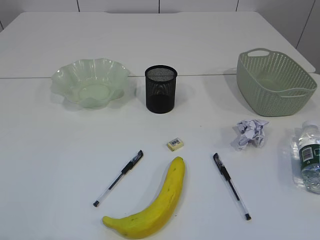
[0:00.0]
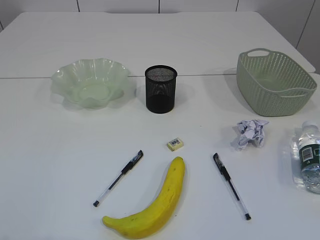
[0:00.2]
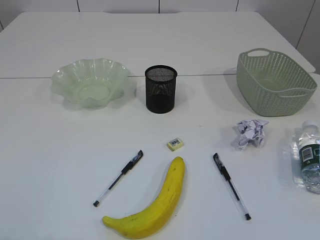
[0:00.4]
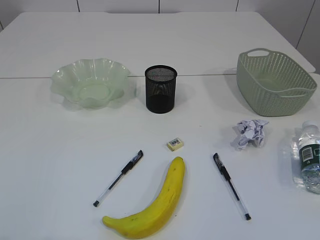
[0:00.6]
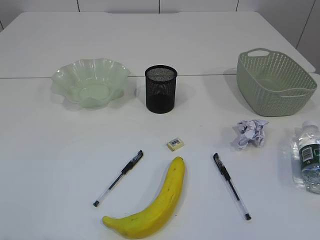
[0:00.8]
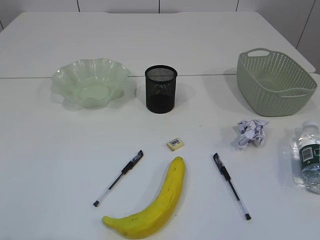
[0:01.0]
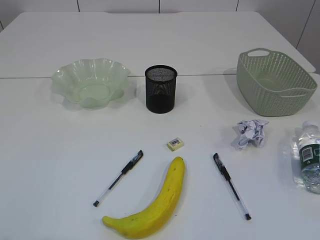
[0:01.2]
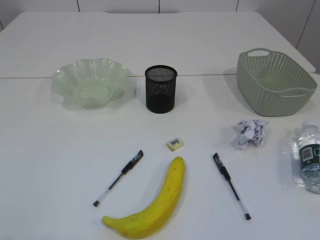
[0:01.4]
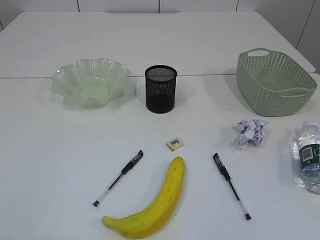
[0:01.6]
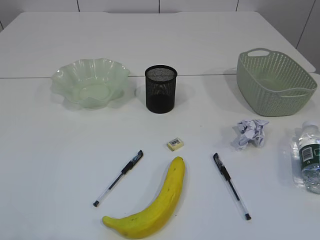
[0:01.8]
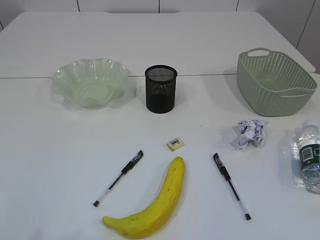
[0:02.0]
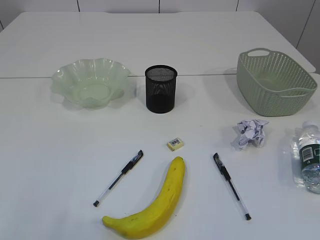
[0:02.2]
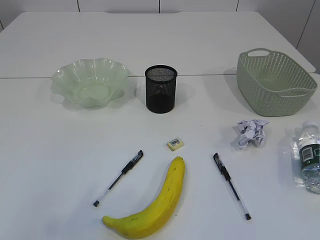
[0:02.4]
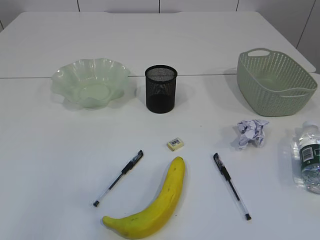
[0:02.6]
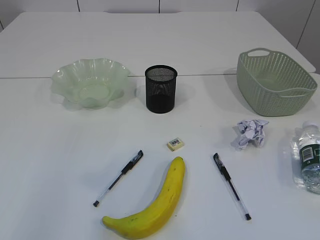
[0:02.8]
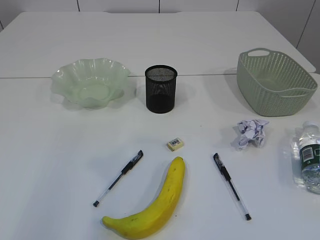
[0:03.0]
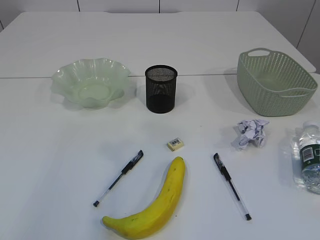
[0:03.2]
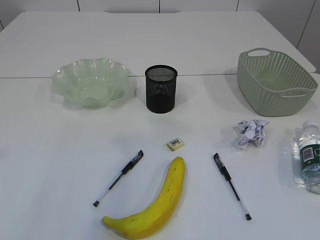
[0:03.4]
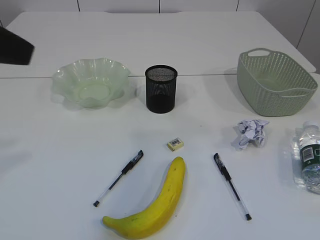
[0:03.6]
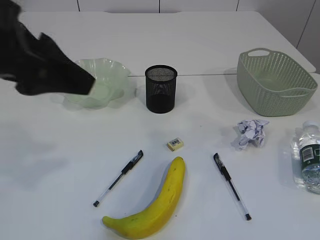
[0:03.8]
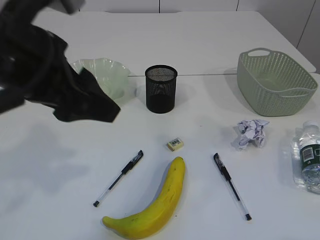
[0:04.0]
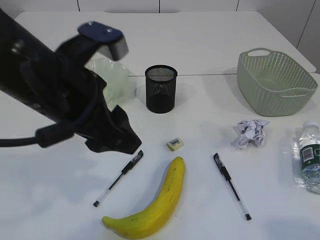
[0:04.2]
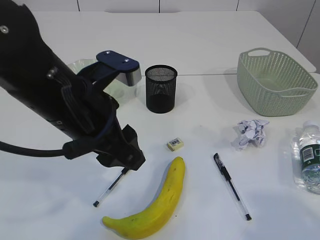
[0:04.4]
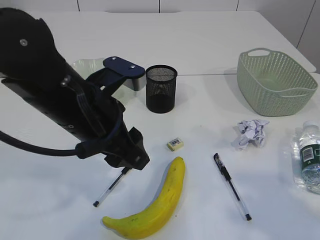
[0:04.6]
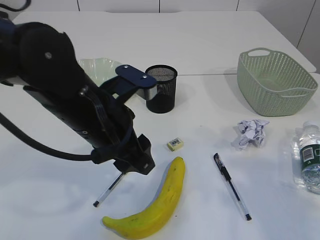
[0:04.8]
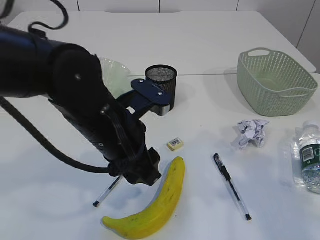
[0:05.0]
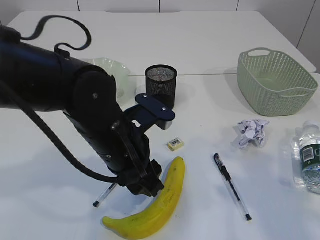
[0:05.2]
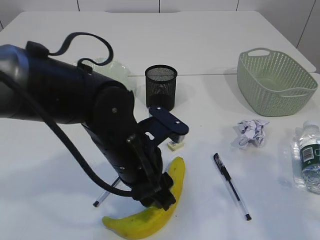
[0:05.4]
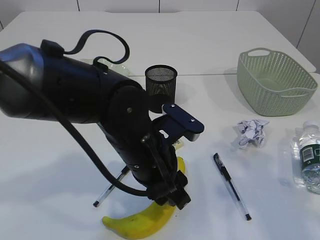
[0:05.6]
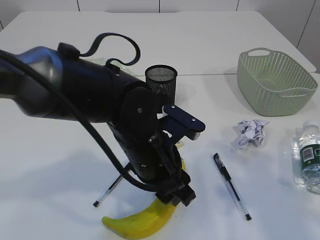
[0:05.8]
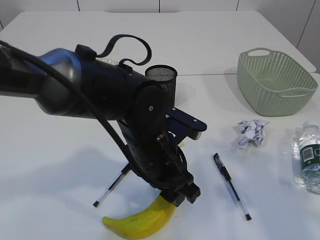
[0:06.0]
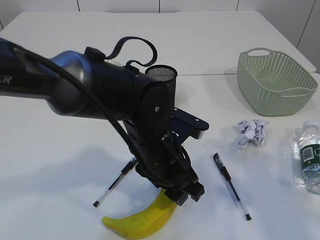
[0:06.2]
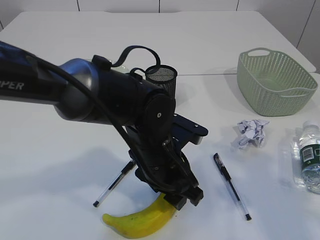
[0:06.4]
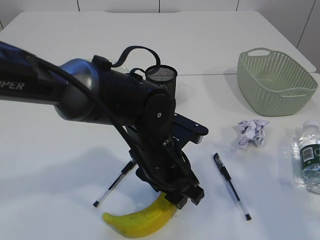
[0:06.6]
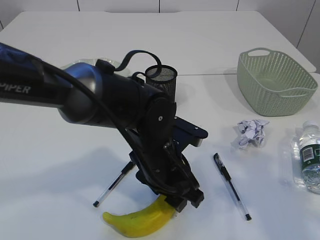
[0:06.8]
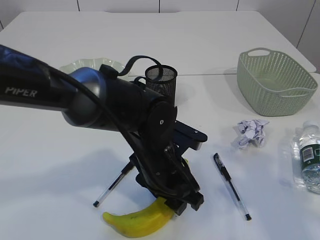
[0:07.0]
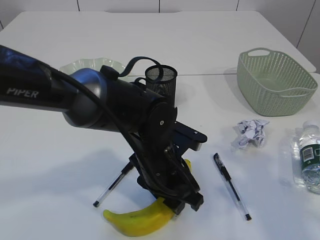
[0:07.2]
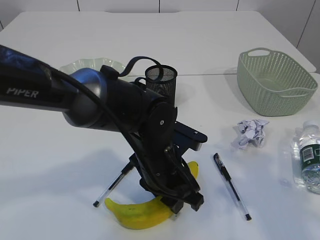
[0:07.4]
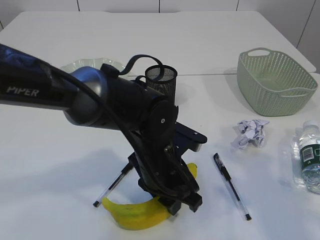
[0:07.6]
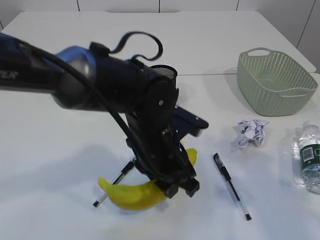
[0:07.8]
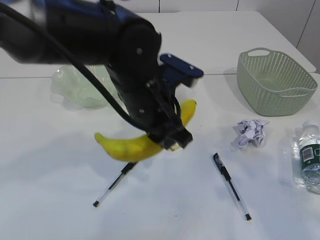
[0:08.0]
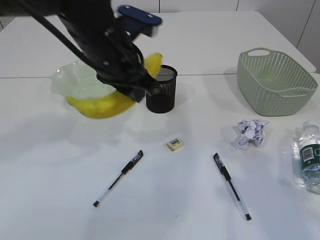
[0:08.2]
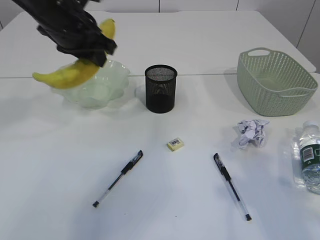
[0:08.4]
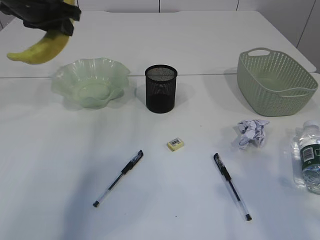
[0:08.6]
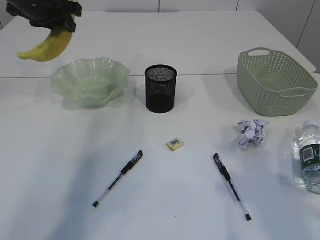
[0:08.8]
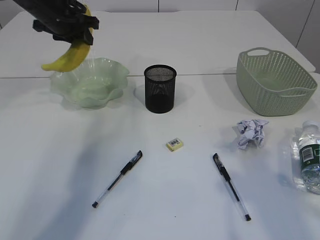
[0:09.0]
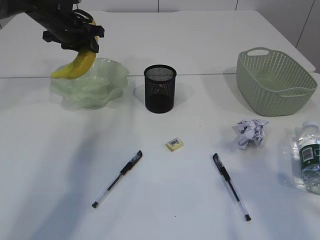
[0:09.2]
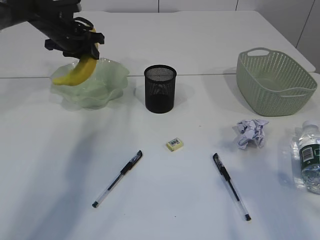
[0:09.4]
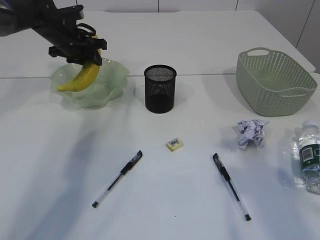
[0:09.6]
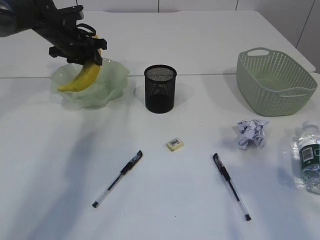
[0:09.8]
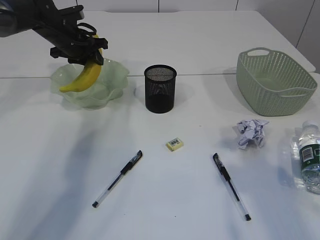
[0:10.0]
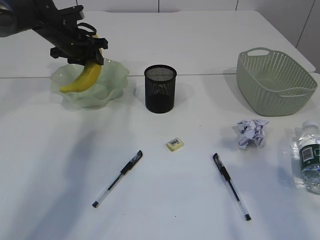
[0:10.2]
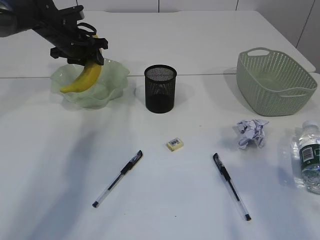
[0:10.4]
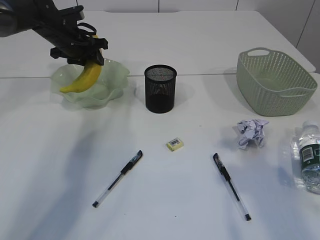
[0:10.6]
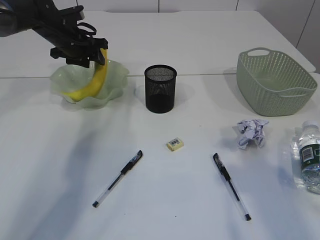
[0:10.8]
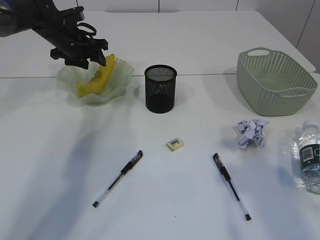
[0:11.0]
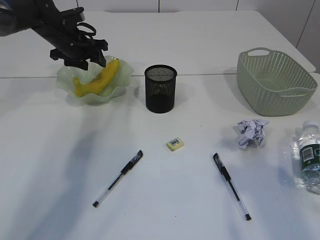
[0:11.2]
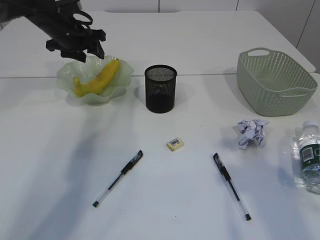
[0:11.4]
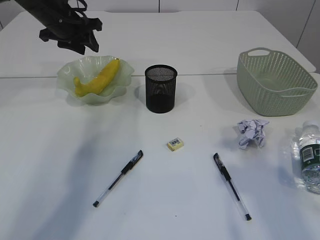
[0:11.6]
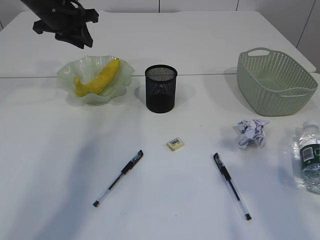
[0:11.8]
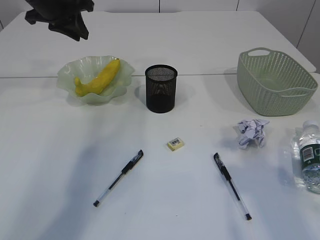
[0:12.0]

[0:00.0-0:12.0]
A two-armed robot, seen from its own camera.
Step, 0:08.0 to 0:11.6: Place the banana in the plate.
0:03.0 to 0:04.4: The left gripper moves to the right, downward and forward, roughly 30 cm. Meanwhile the right gripper is displaced forward and upward by roughly 10 cm.
0:04.4 to 0:06.0: The left gripper is displaced downward and to the right by roughly 15 cm. The right gripper moves forward, approximately 10 cm.
0:06.0 to 0:07.6: There are only small adjustments of the grippers.
0:07.6 to 0:09.0: The left gripper goes about 35 cm forward, to the left and upward.
0:09.0 to 0:10.4: The left gripper travels downward by roughly 5 cm.
0:10.4 to 0:12.0: The left gripper moves upward and backward, roughly 10 cm.

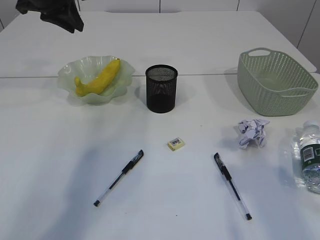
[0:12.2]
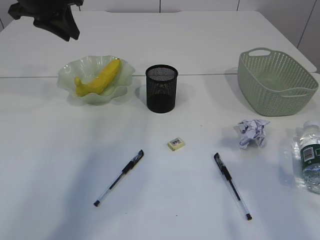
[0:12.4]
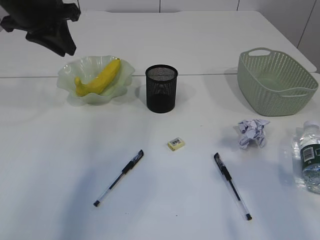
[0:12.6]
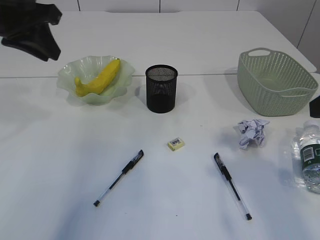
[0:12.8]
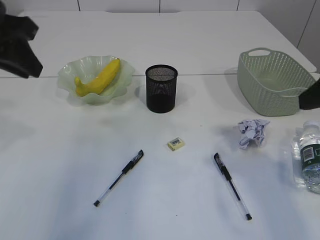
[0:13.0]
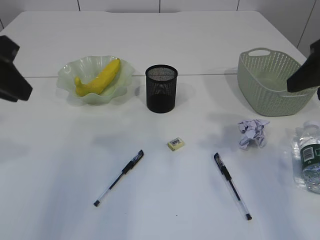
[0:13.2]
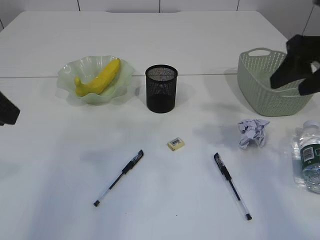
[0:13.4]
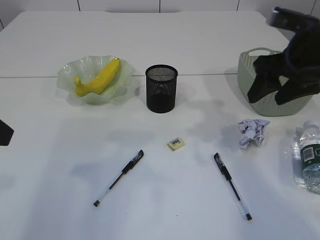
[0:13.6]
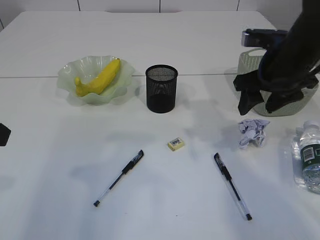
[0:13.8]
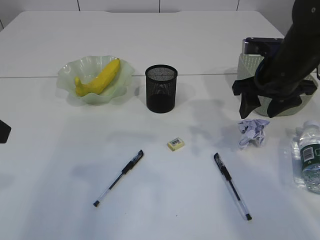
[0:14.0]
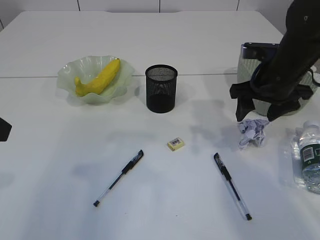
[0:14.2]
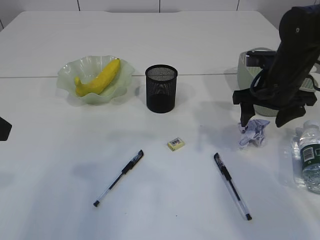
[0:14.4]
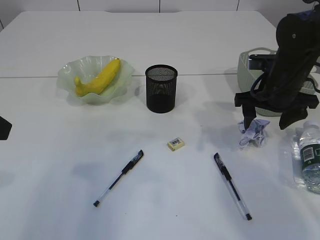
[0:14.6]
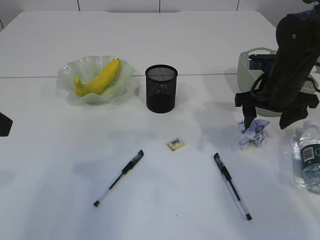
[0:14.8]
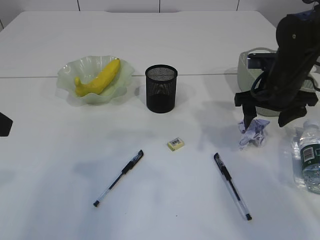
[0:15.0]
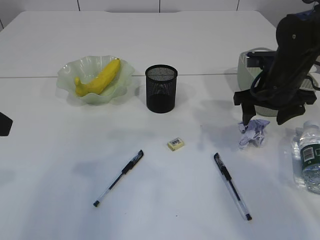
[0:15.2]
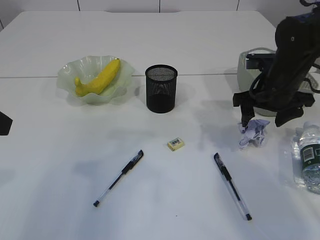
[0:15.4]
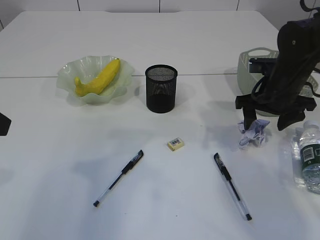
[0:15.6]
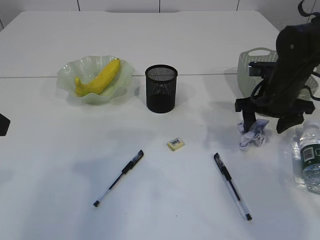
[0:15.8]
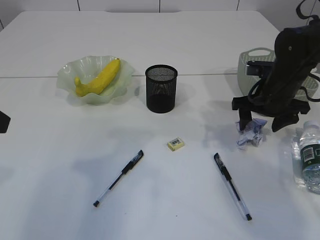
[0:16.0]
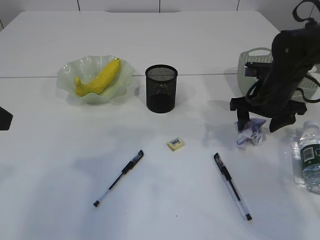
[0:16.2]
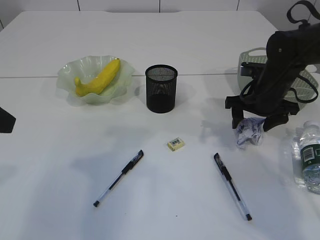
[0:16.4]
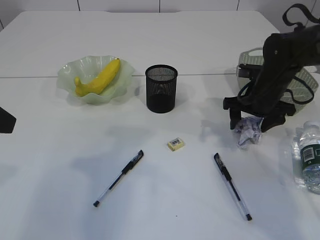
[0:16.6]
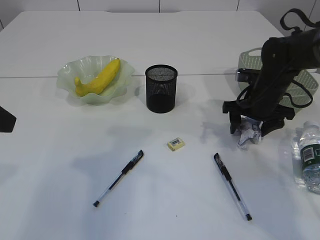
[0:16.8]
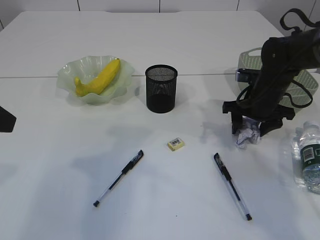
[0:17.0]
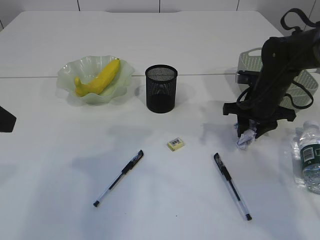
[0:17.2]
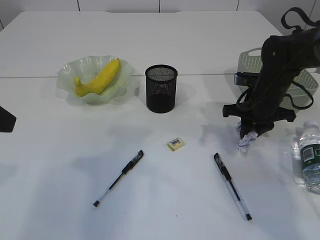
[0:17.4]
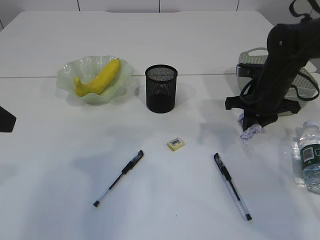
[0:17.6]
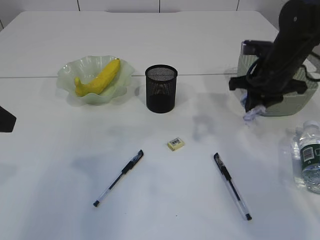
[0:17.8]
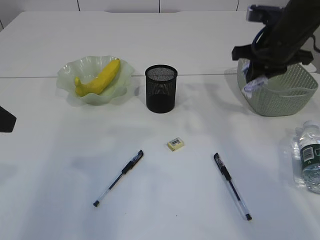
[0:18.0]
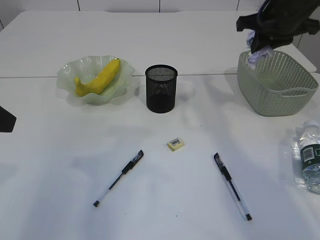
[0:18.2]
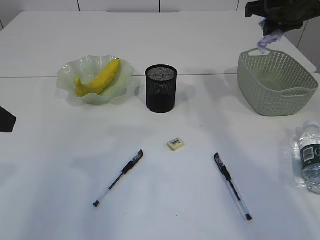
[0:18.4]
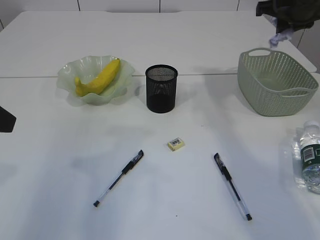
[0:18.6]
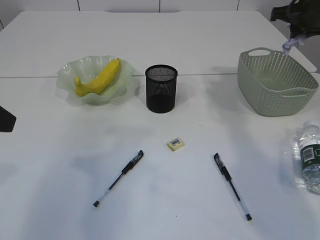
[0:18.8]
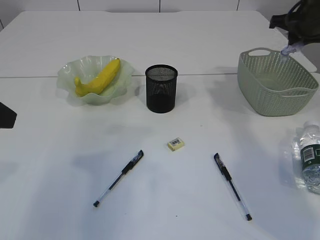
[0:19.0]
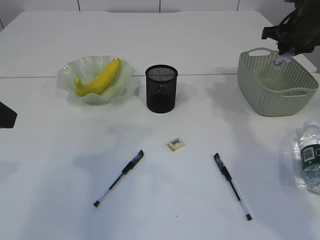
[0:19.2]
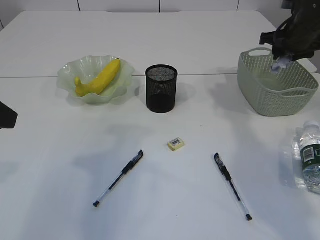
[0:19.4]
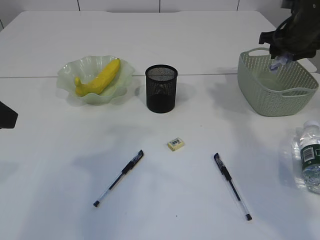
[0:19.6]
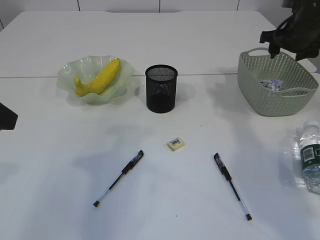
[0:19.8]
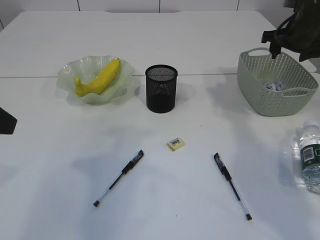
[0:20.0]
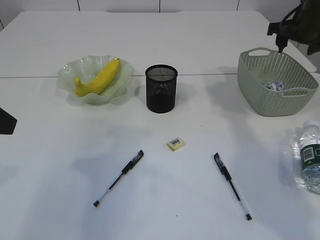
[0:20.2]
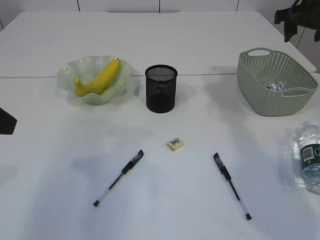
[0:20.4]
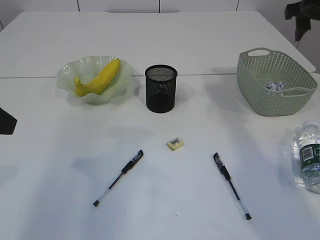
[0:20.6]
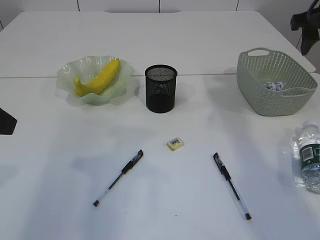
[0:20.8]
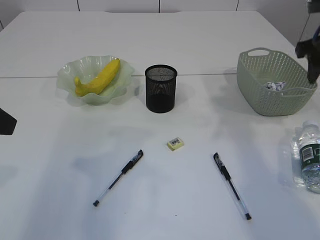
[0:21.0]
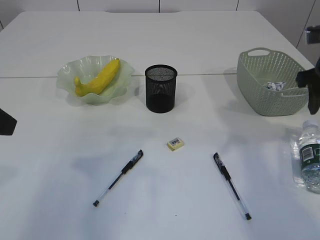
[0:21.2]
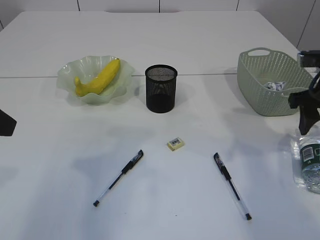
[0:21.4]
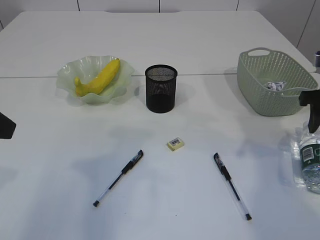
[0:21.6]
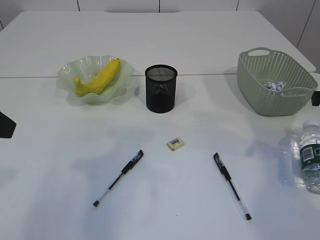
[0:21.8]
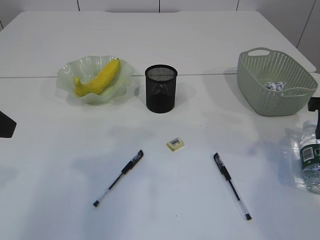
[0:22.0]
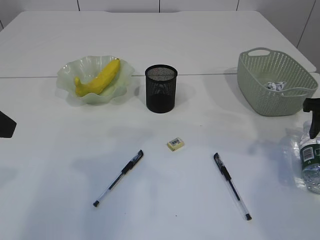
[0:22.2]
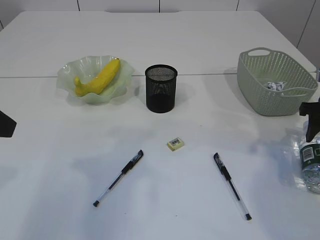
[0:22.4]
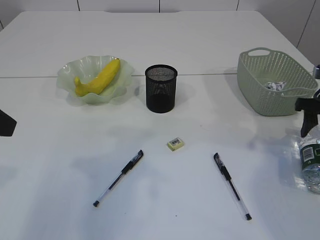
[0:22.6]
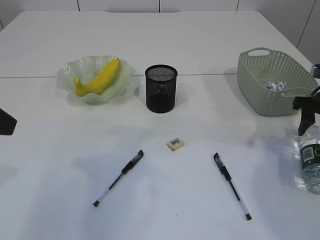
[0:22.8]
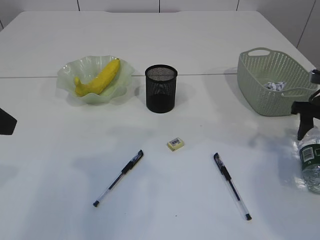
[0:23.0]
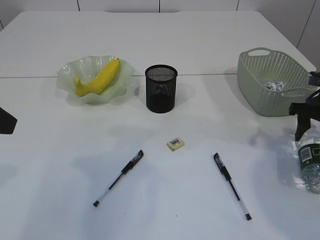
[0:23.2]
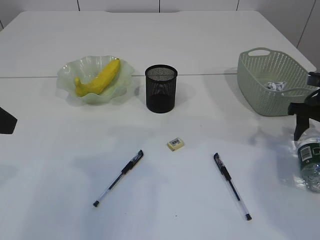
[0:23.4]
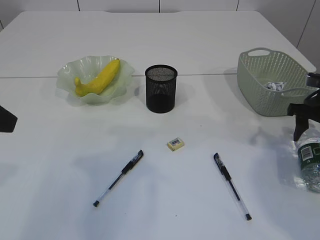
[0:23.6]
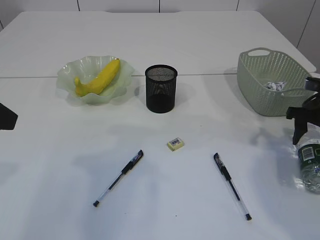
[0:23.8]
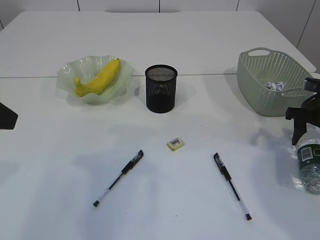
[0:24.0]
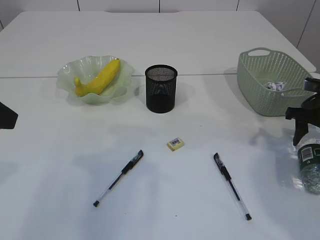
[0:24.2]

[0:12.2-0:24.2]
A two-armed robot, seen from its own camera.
Step, 0:12.2 to 0:17.8: Pick up the waste paper.
Step, 0:18.0 to 0:20.4: Place the waste paper in the basket.
0:12.2 to 0:13.8: The right gripper moves forward, about 20 cm. Meanwhile the left gripper shifts roughly 30 cm backward.
0:13.8 to 0:15.2: The right gripper shifts roughly 5 cm downward.
0:15.2 to 0:16.6: The right gripper ends up some 5 cm from where it was.
0:16.6 to 0:18.2: The right gripper goes approximately 15 cm upward, and closes up.
0:18.2 to 0:19.8: The right gripper shifts about 10 cm to the right, downward and forward, and opens up.
0:19.8 to 0:21.2: The right gripper travels backward by some 15 cm.
0:21.2 to 0:22.6: The right gripper goes some 10 cm downward.
0:22.6 to 0:24.2: There are only small adjustments of the grippers.
